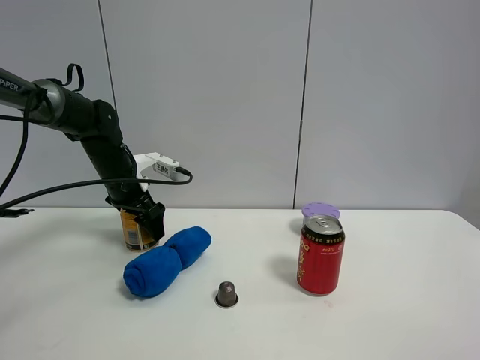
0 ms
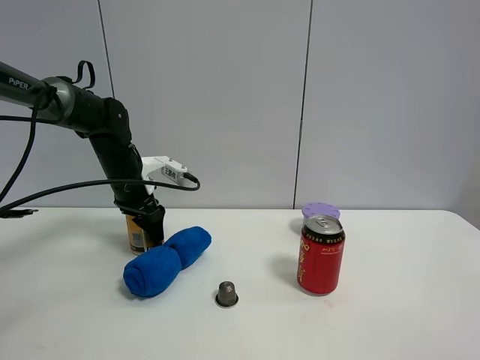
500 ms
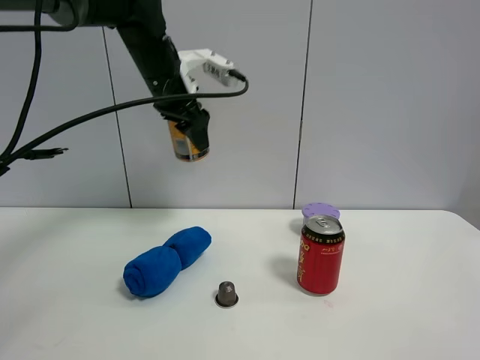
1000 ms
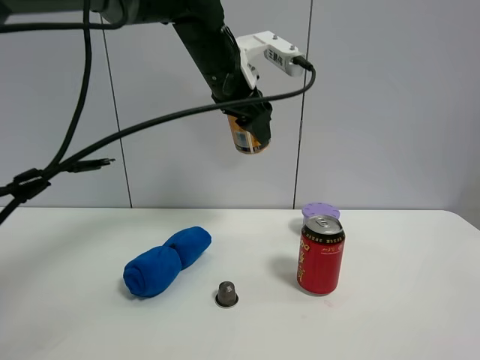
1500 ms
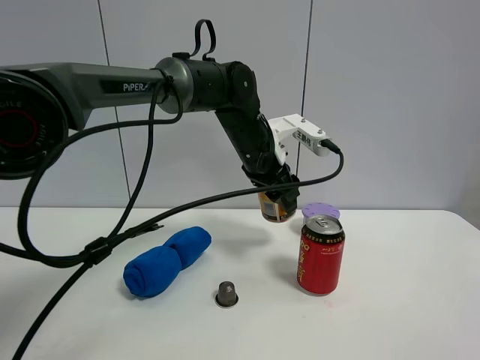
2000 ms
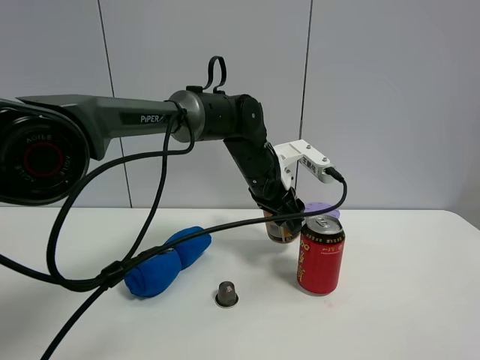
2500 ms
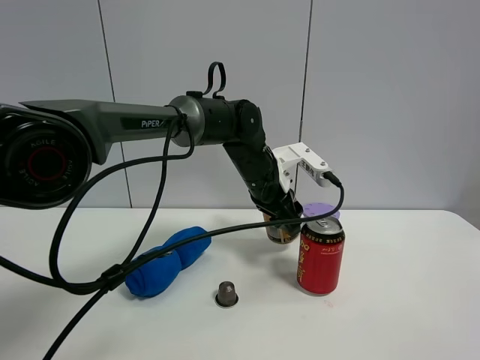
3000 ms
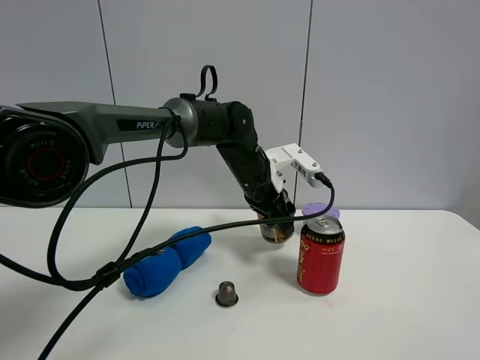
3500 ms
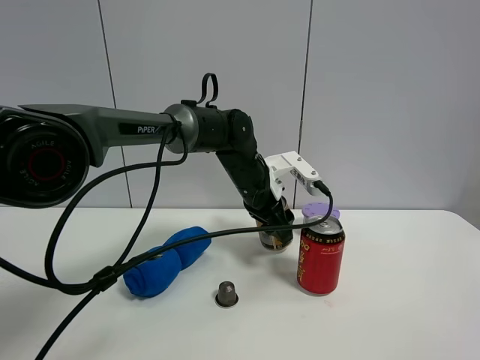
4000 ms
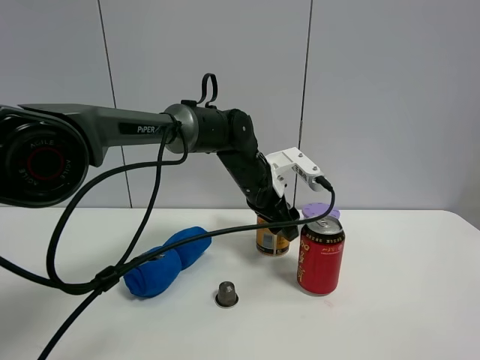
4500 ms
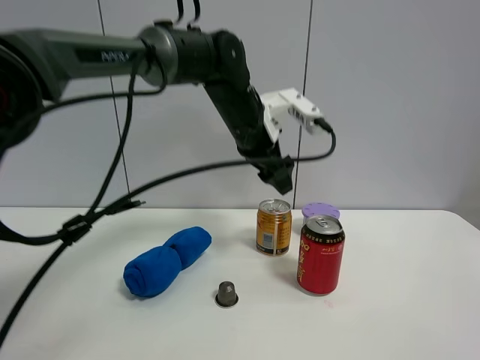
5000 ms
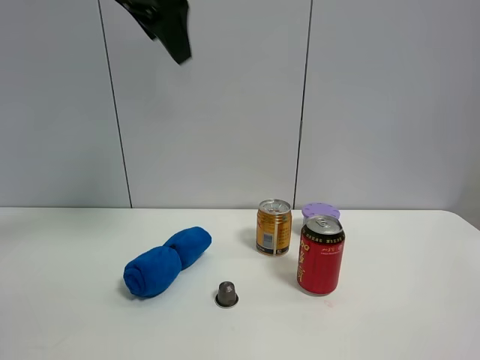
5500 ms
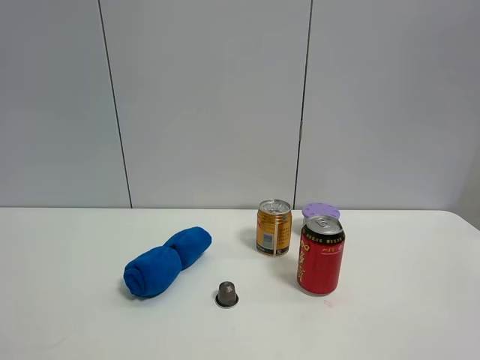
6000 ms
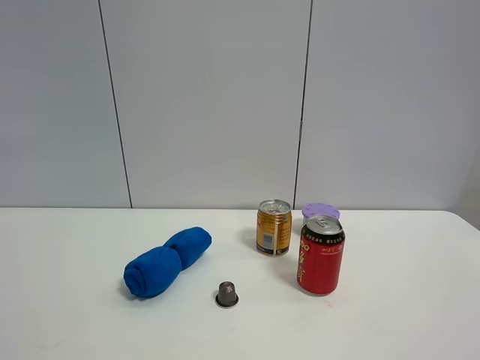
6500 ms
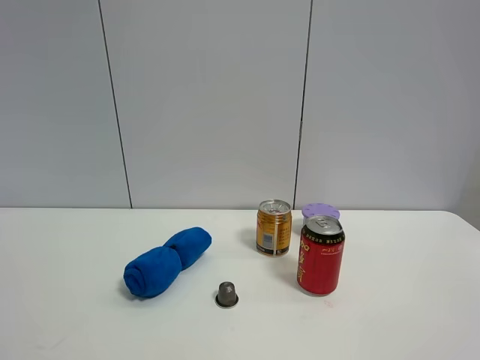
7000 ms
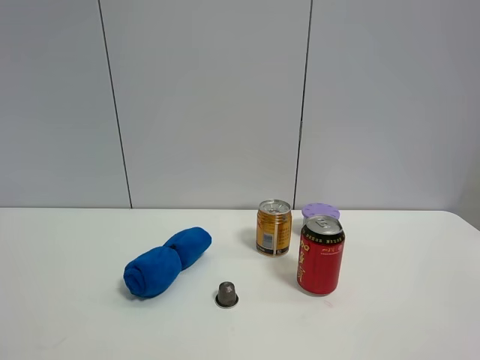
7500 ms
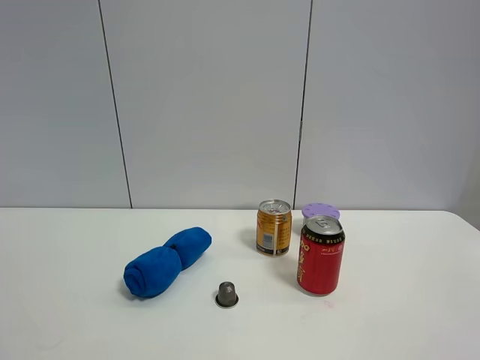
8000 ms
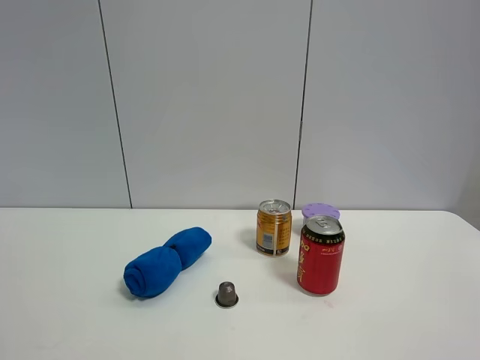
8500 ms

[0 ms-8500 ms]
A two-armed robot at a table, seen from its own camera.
Task of the whole recording: the gripper move the object.
Step, 500 ms to 4500 ms: Place the red bull on the table with the left gripper.
0 ms to 2000 ms: The left gripper is displaced to the right by about 25 cm, and closes its fingers.
2000 ms to 4000 ms: The left gripper goes roughly 5 cm downward.
4000 ms to 6500 ms: The left gripper heads backward, to the left and upward, covering about 60 cm, and opens.

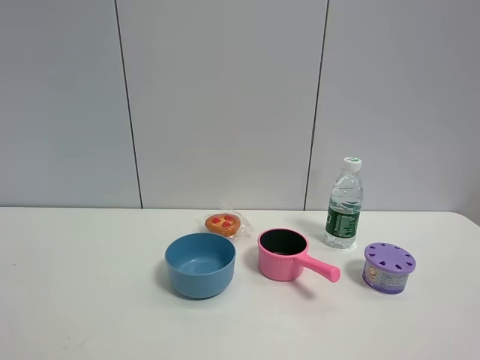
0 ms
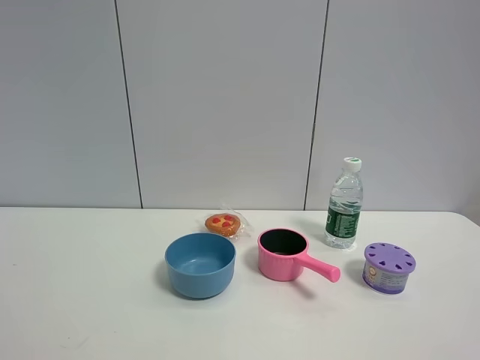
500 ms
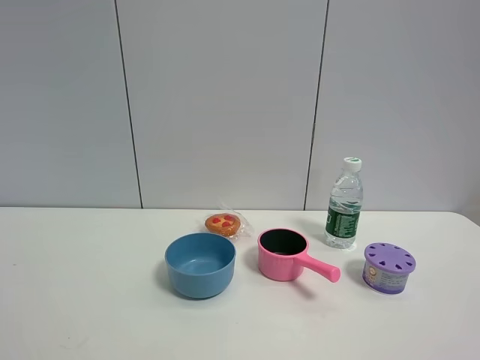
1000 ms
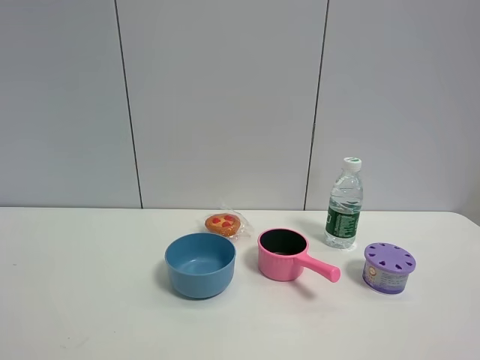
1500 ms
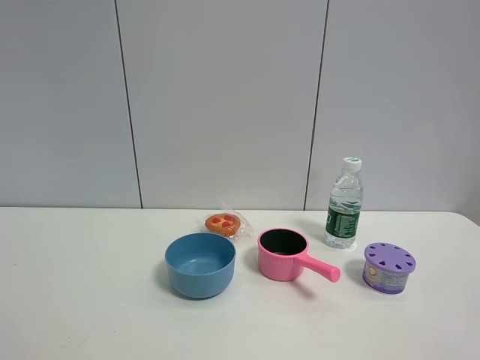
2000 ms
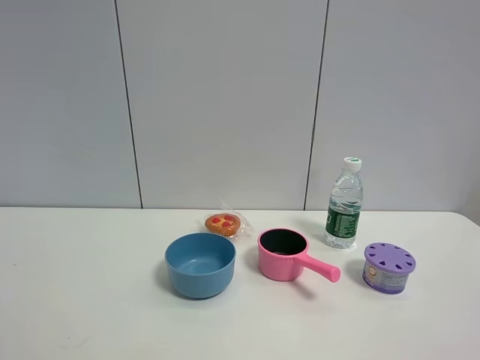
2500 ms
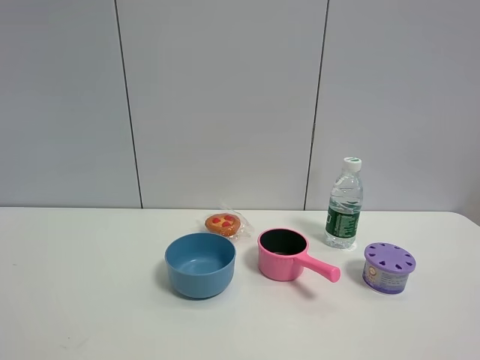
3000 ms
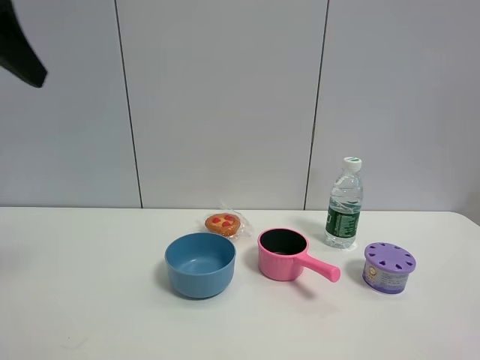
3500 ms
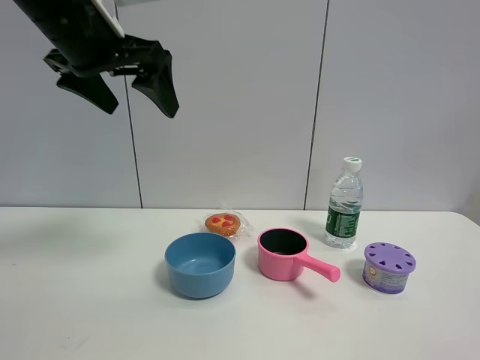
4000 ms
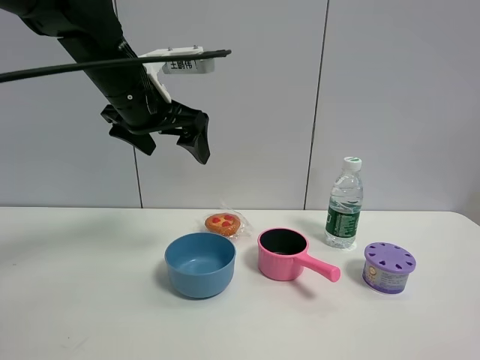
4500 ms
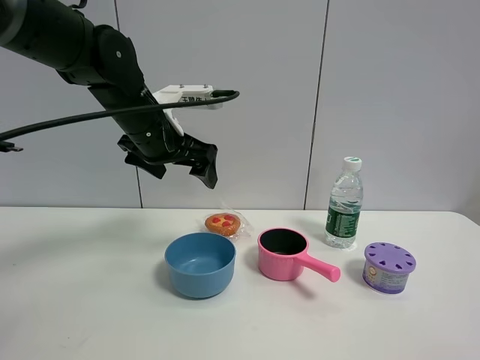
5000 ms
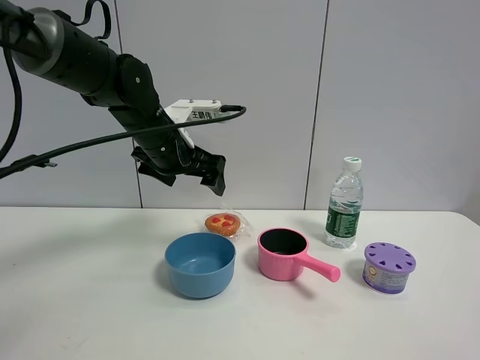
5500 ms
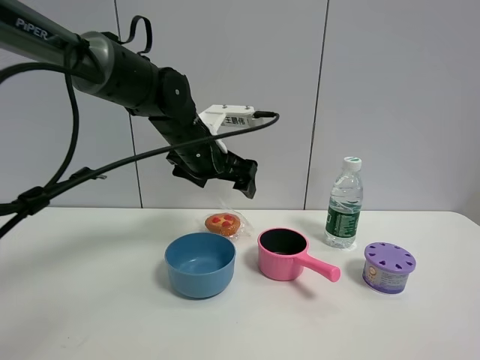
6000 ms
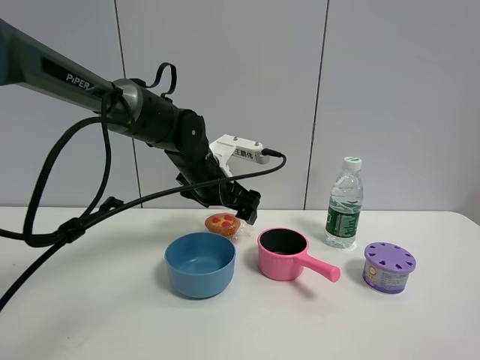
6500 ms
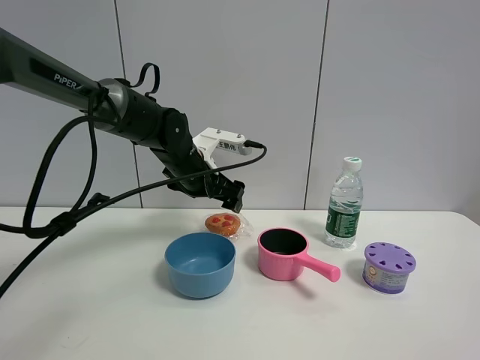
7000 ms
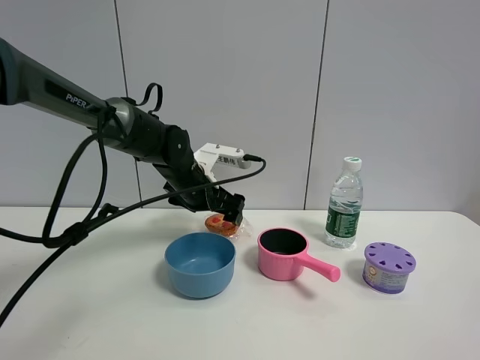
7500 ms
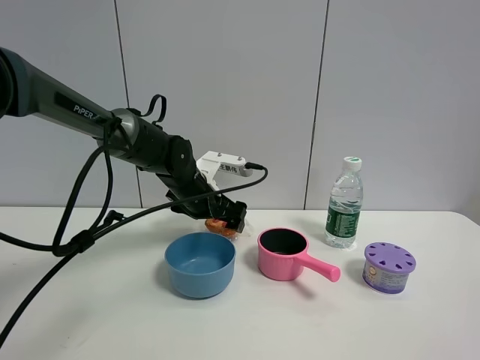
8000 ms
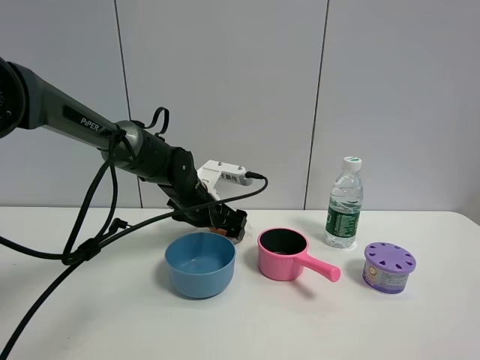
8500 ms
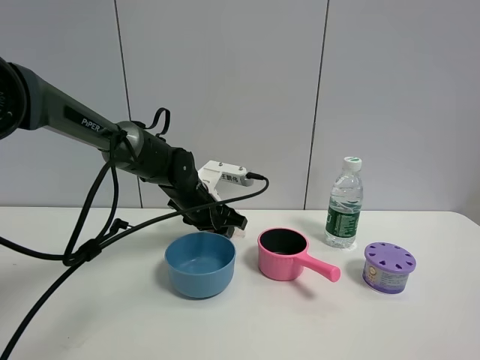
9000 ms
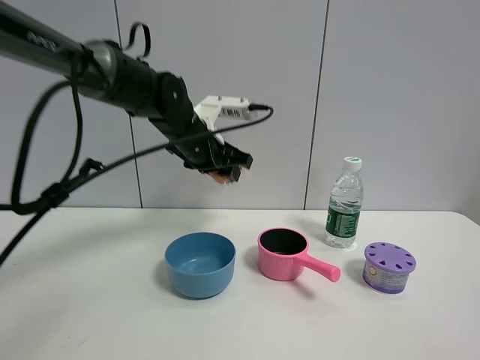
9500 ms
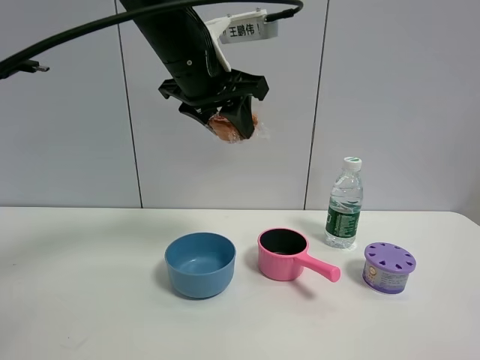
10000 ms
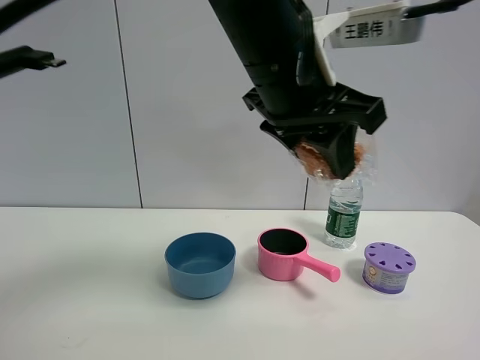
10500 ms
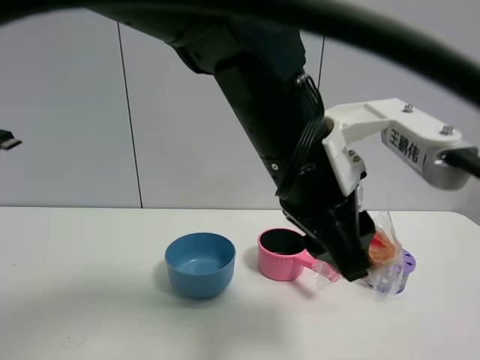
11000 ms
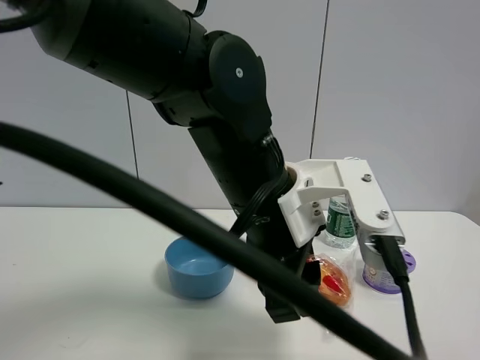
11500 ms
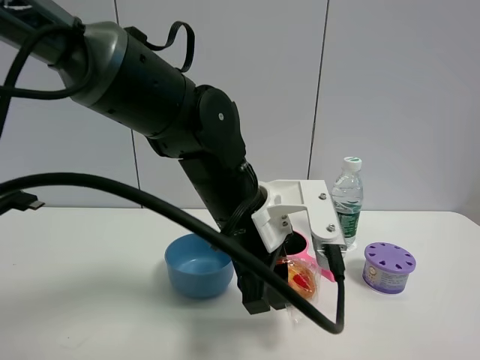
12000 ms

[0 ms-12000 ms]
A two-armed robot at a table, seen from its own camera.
Task of the whole recording: the gripper move the object.
Step, 0 ms to 9000 ms: Grasp the egg tart with the left gripper.
0 ms to 2000 ms: Both grippers stay about where they are.
2000 ms to 4000 ms: The left gripper moves forward and to the right, roughly 40 cm.
4000 ms to 6000 ms: The left gripper travels downward, forward and to the right by some 20 cm.
6000 ms to 8000 ms: The left gripper moves downward, roughly 10 cm.
8000 ms to 10000 ms: The left gripper moves upward and backward, some 25 cm, and closes up.
10000 ms to 12000 ms: The left gripper goes about 15 cm downward and backward.

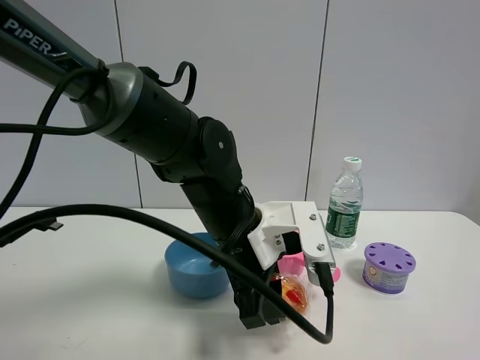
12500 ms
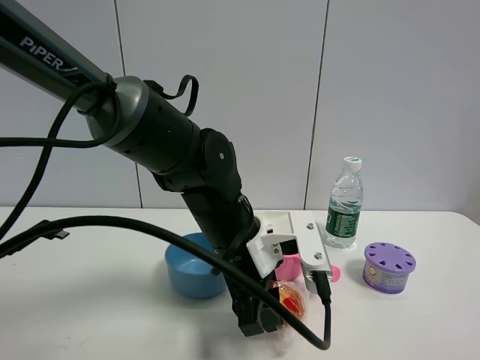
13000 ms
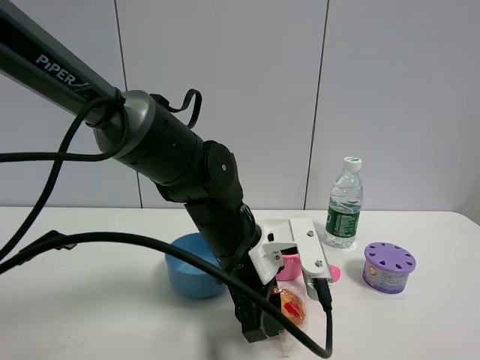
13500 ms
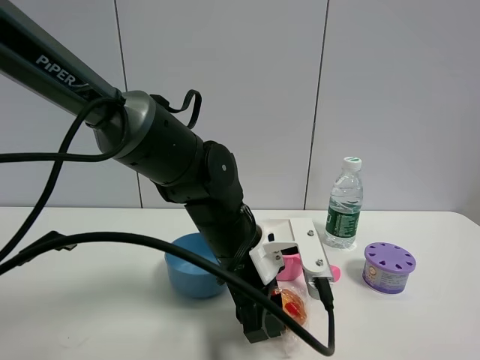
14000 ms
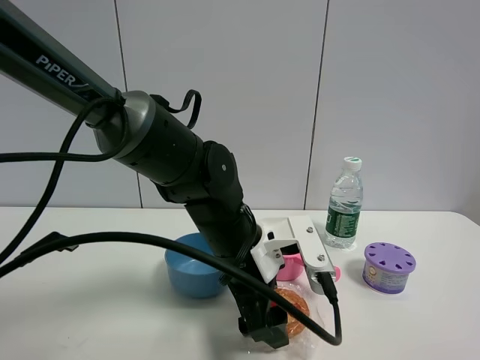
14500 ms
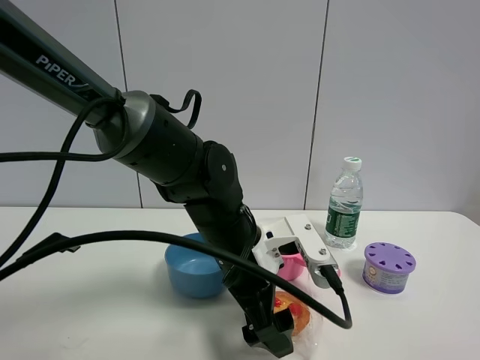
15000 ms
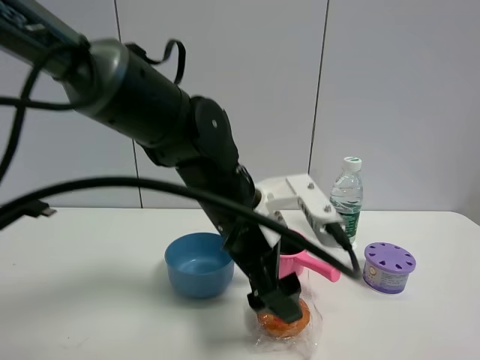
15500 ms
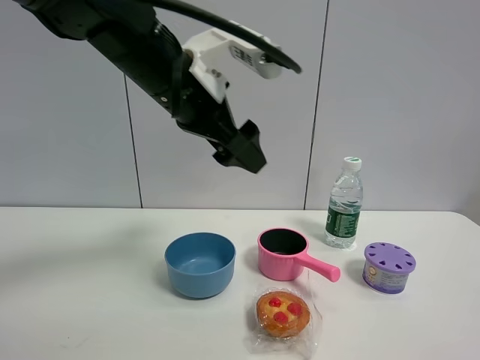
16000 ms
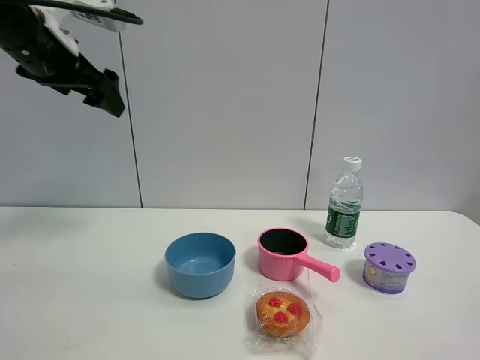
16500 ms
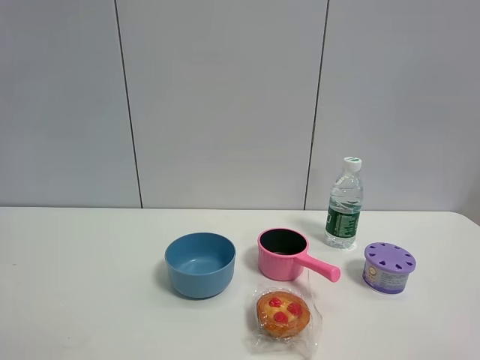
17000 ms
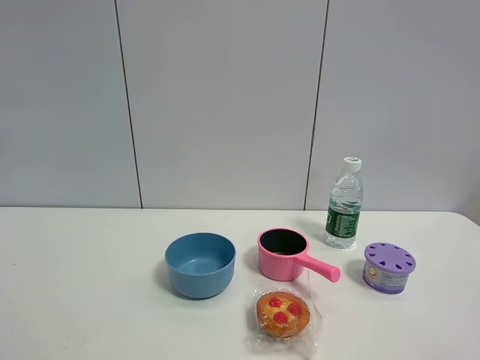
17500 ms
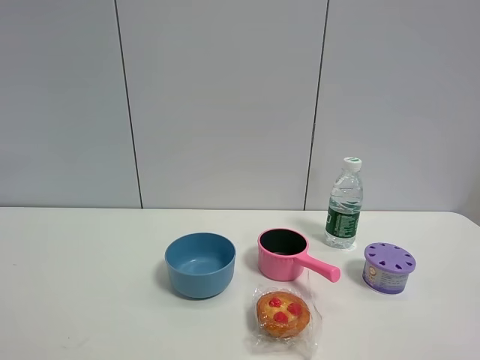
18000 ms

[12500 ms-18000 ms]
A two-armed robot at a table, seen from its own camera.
Task of the whole recording: the gripper move the object.
Step, 12500 ms to 15000 ms: Place the egg tart on the table with the left gripper.
12500 ms to 14500 ms: The left gripper opens its fingers.
14500 ms to 16000 ms: The left gripper is displaced upward and to the left by some 20 cm.
16000 ms to 18000 ms: The left gripper moves backward and to the left, roughly 40 cm.
